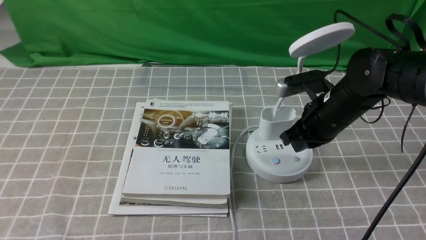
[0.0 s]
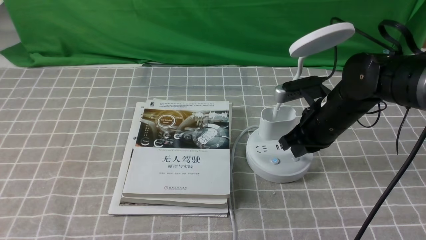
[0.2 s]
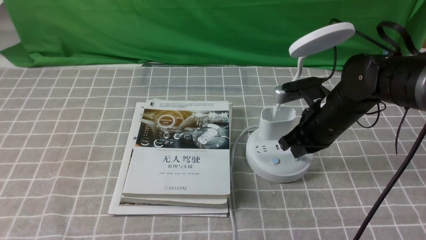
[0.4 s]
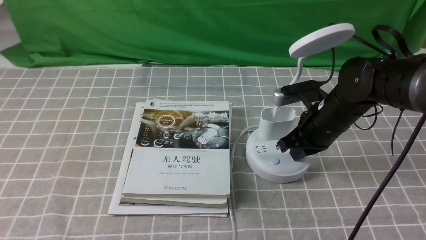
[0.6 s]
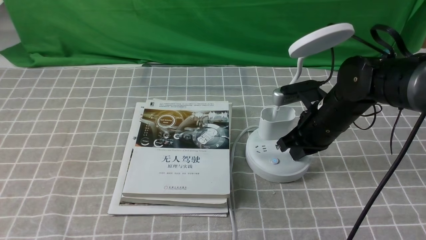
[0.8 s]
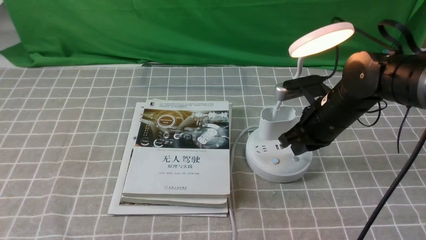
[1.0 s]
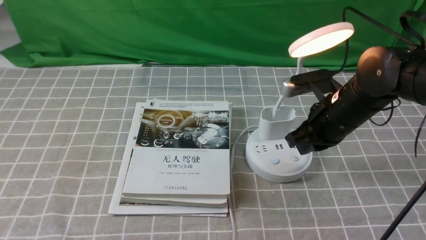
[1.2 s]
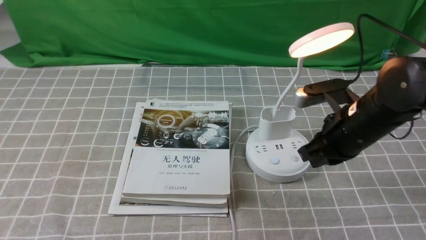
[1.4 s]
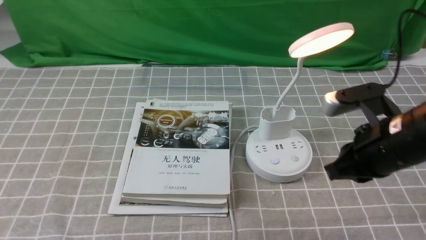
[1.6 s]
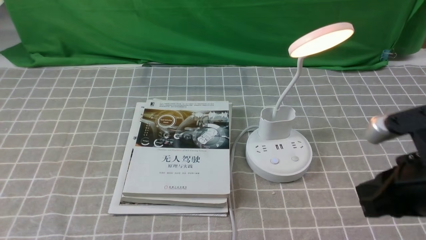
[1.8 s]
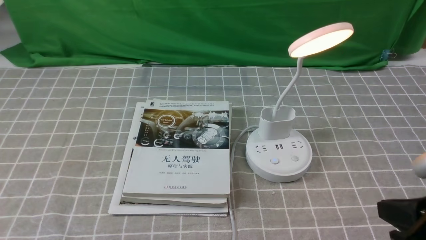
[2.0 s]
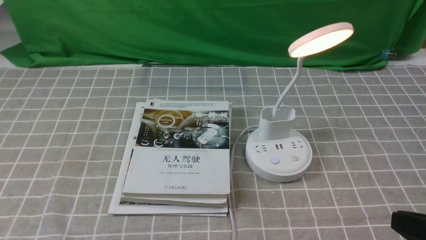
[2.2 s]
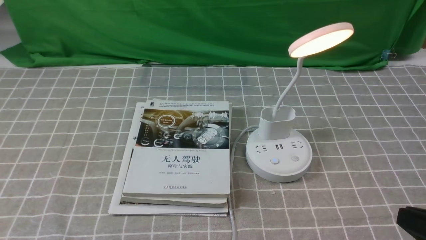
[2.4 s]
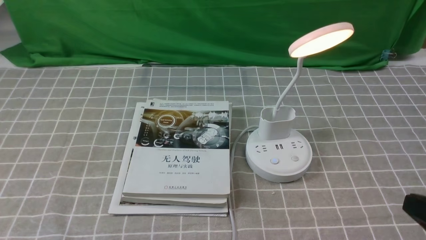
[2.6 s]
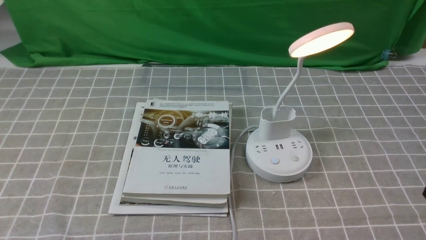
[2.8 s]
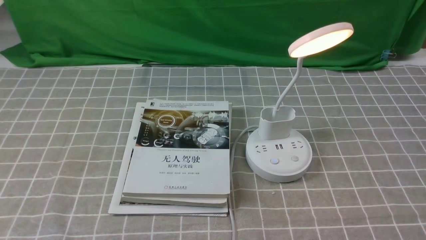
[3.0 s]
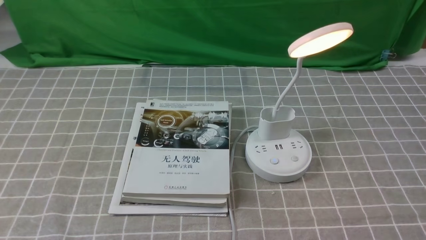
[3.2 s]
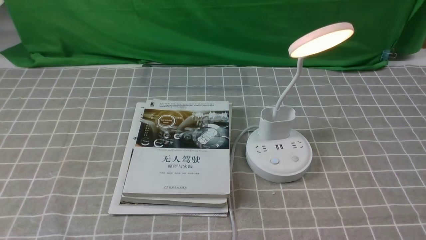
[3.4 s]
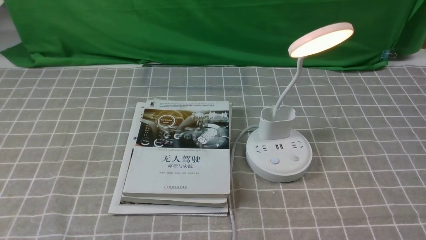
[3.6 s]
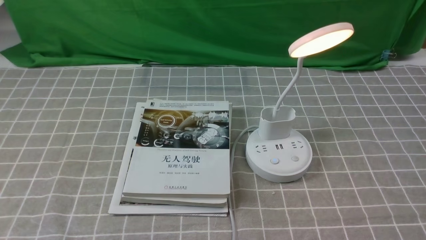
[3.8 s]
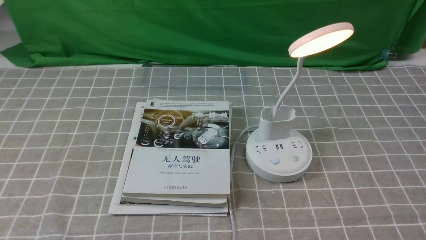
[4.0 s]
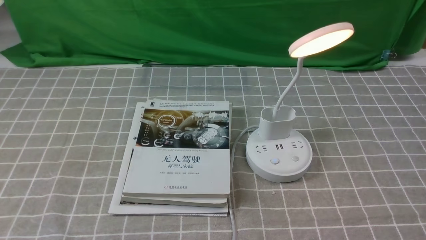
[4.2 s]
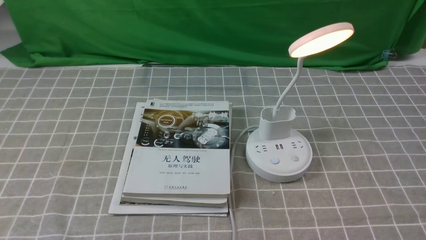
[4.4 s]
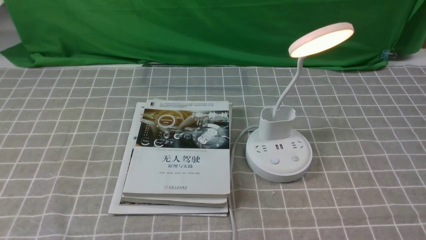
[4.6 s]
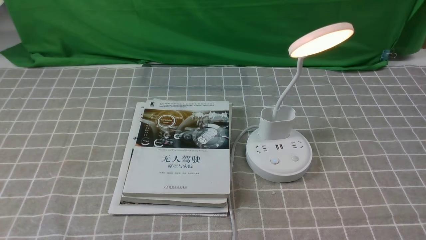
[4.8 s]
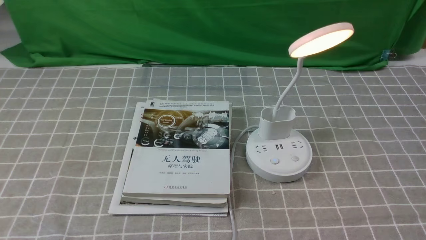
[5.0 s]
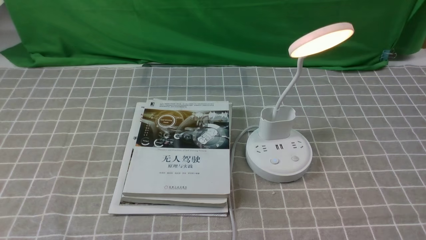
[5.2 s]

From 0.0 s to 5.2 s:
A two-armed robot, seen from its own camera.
From 0.0 s to 1.8 s: The right gripper moves backward, approximately 20 cm.
From 1.8 s to 3.4 s: The right gripper goes approximately 15 cm backward, downward and to the right.
